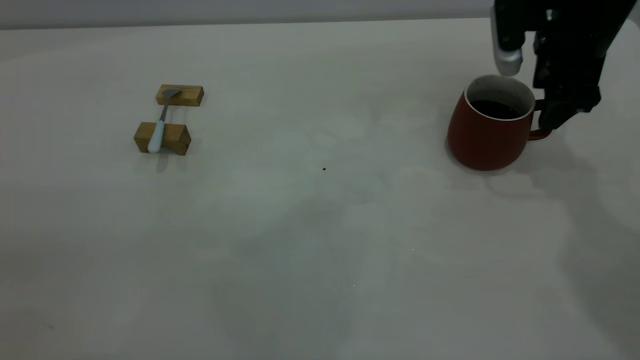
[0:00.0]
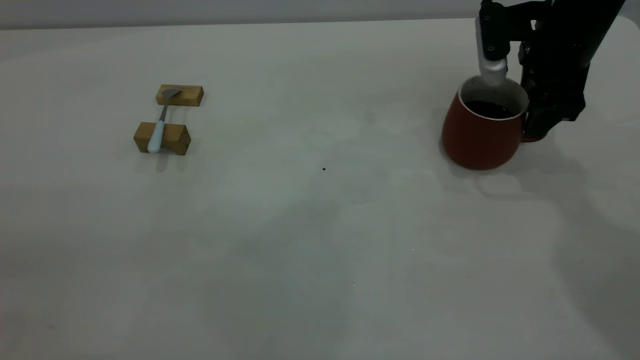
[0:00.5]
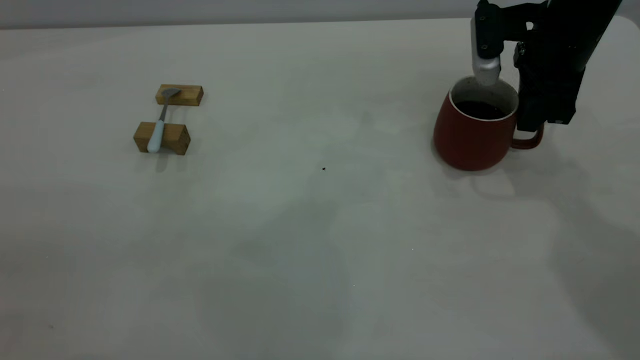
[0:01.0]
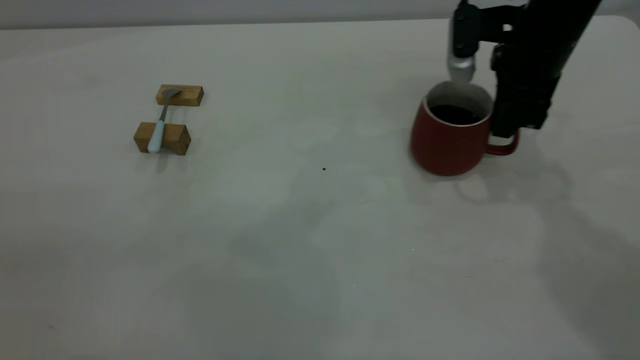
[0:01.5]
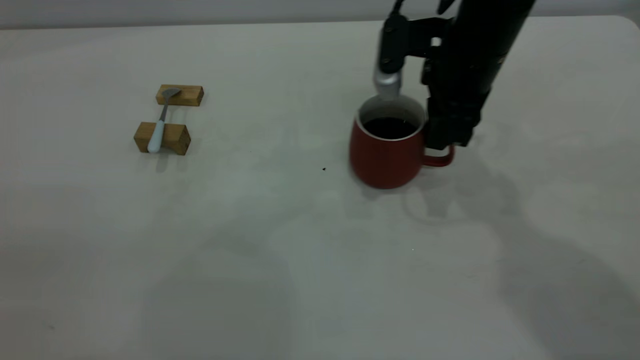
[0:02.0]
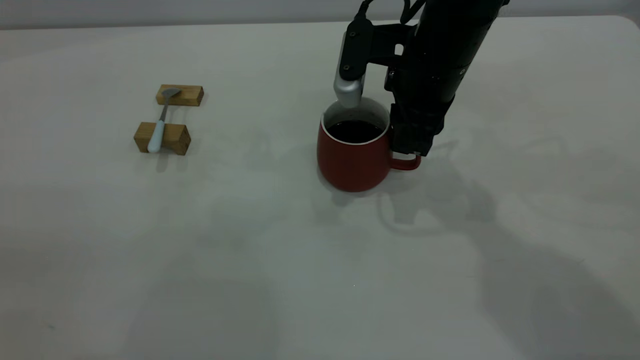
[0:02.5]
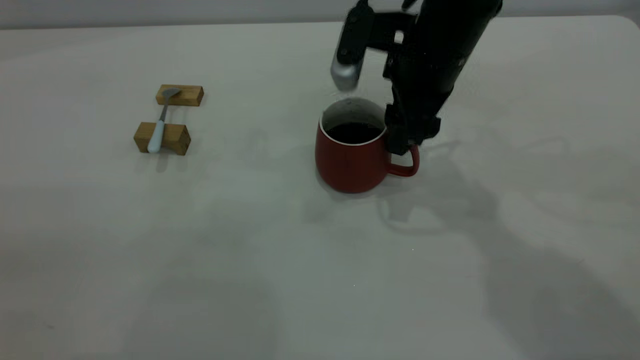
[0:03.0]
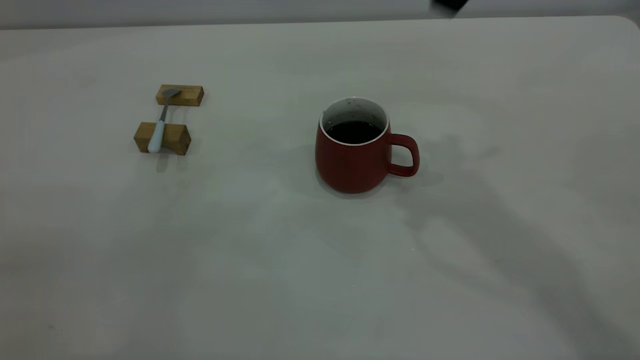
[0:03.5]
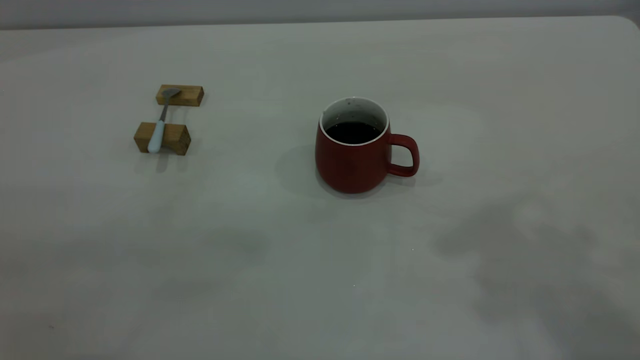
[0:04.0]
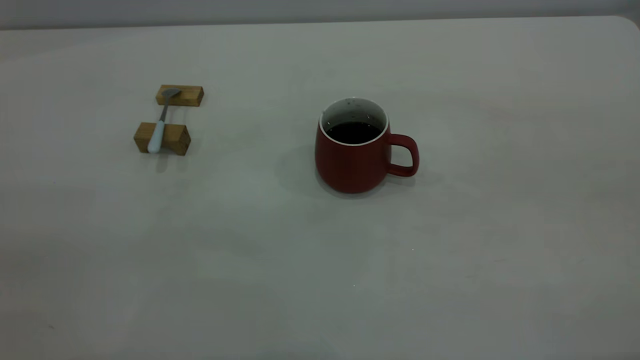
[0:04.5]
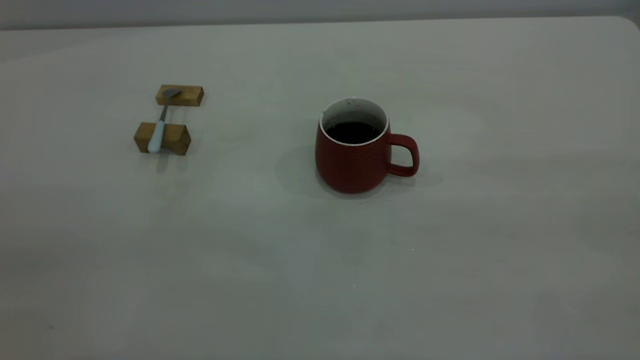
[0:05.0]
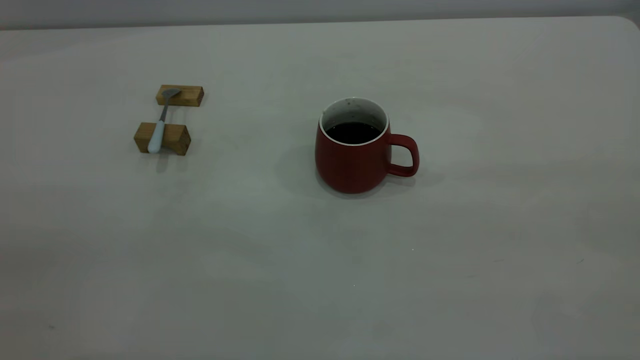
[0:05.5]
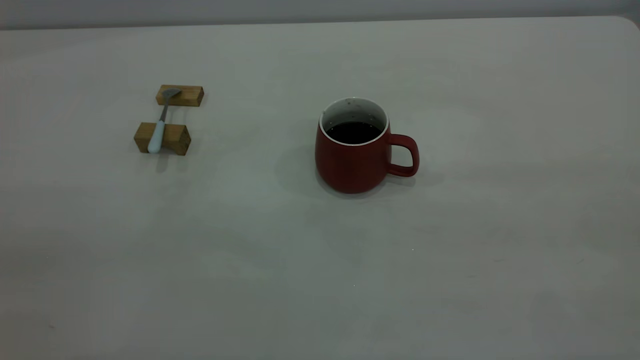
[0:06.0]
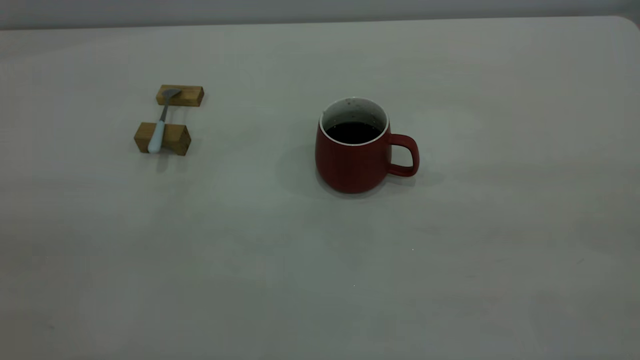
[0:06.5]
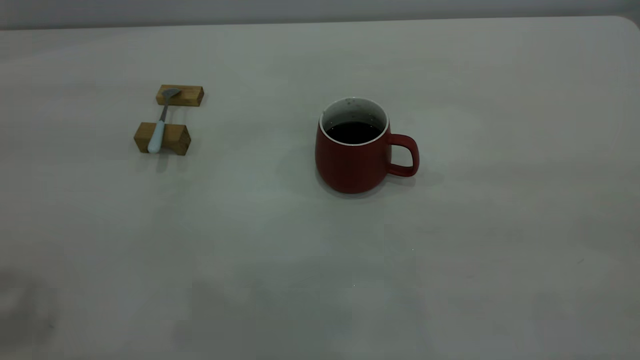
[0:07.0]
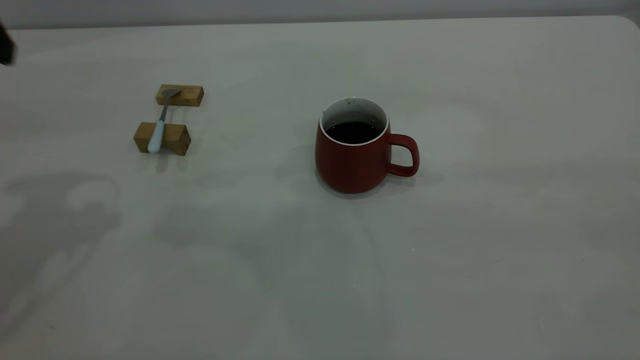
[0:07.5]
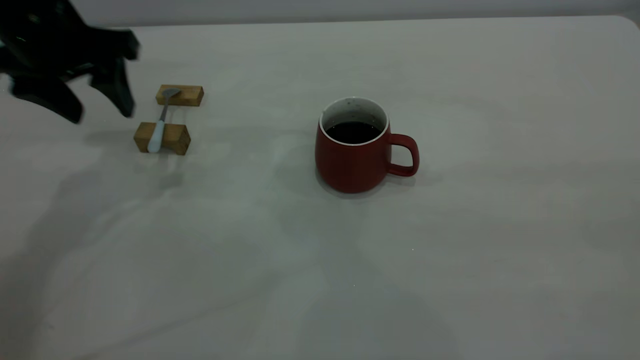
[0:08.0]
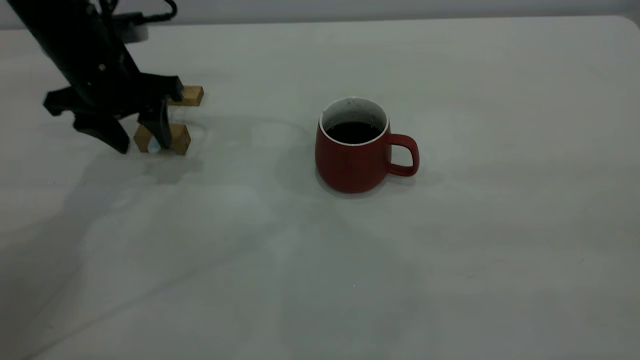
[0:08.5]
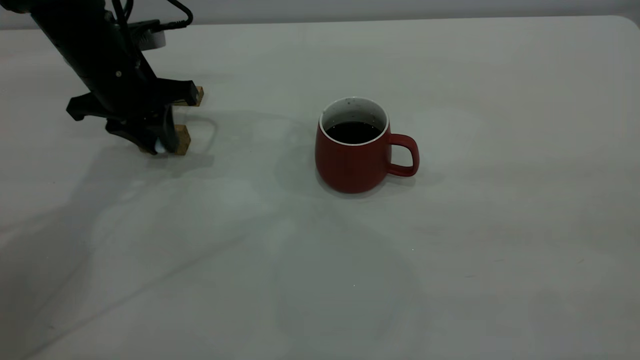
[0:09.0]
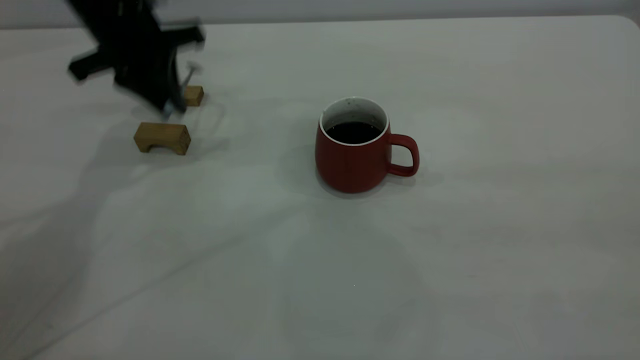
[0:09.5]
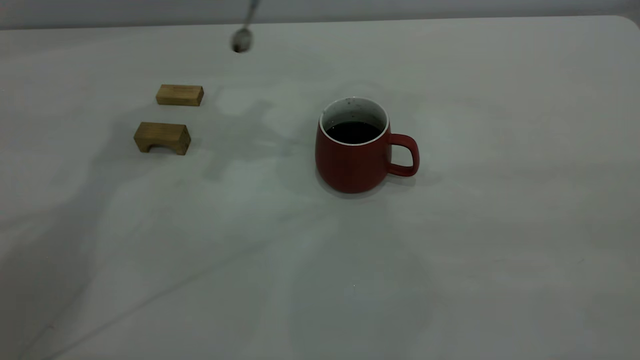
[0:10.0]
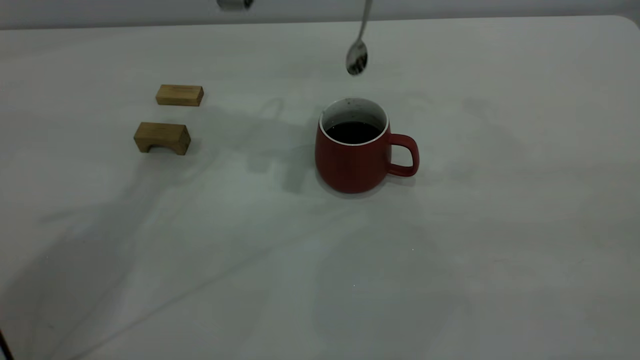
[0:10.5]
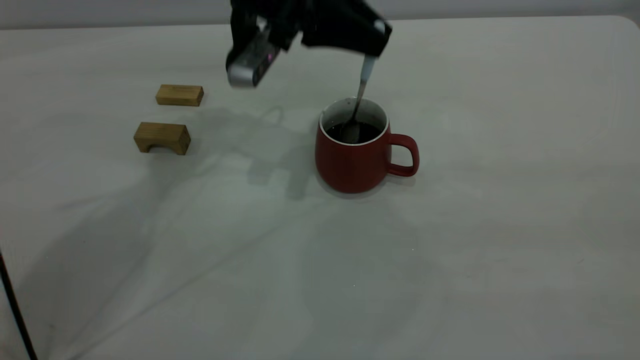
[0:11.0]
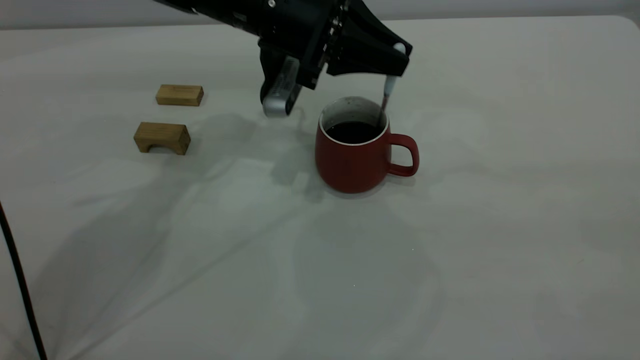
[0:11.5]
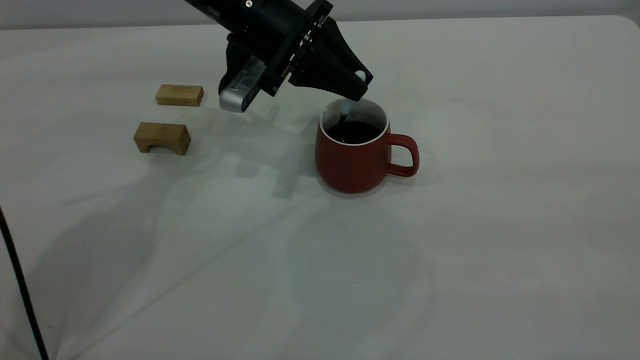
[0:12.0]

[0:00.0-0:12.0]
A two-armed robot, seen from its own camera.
Step, 0:00.0 to 0:03.0: Move the cup with coffee to the center of view.
Step, 0:03.5 to 0:09.5: Pick up the spoon.
0:00.0 to 0:02.0: The right gripper goes roughly 10 cm to the left, and closes.
0:02.0 to 0:04.0: The right gripper travels upward and backward by approximately 40 cm, and opens its fingers.
0:06.0 to 0:08.0: The left gripper heads forward and downward, covering roughly 40 cm.
0:08.0 to 0:10.0: The left gripper heads to the right, upward and forward, covering about 15 cm, and closes its fingers.
0:10.0 to 0:12.0: The left gripper moves downward and to the right, some 15 cm.

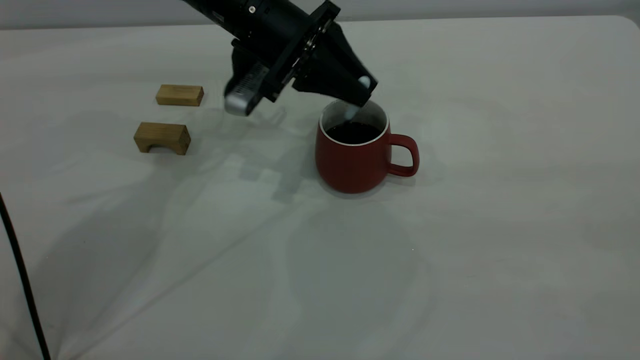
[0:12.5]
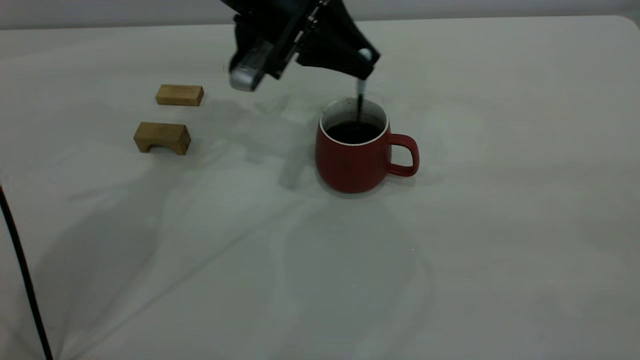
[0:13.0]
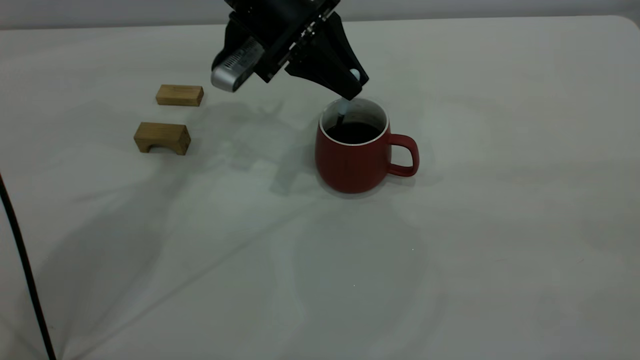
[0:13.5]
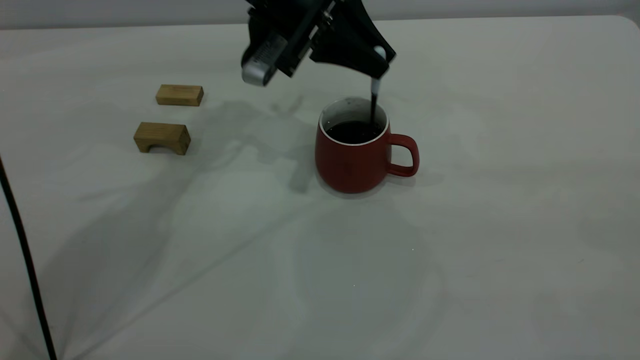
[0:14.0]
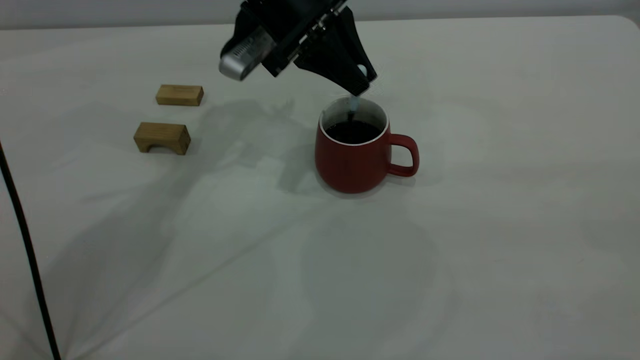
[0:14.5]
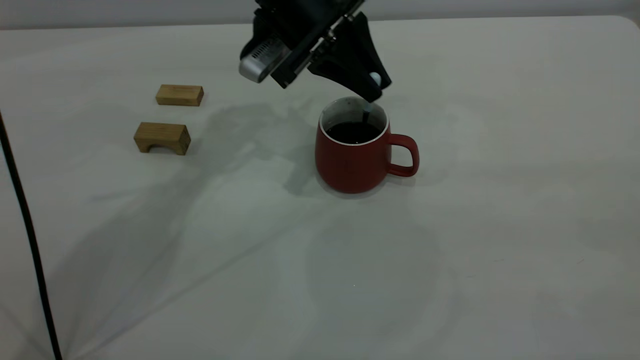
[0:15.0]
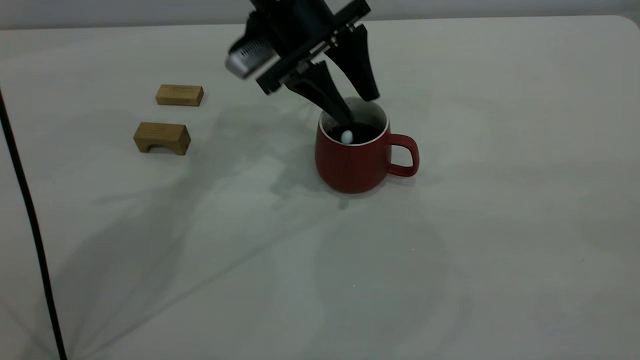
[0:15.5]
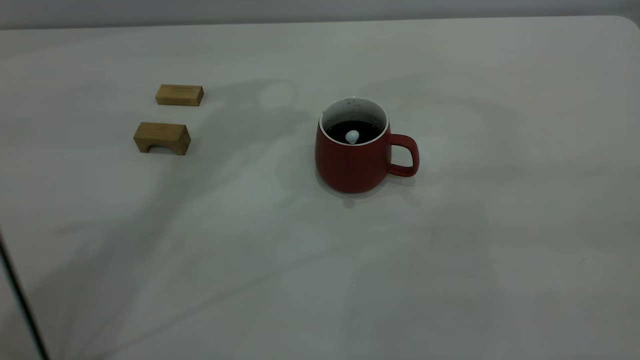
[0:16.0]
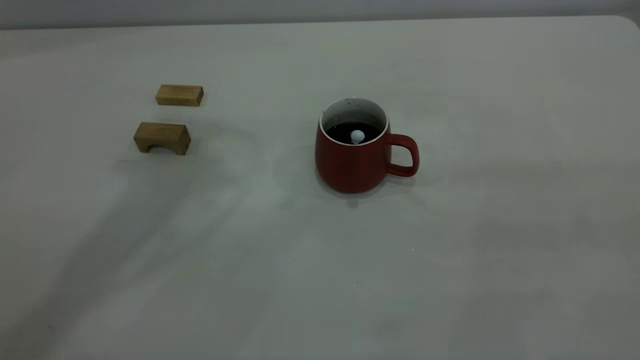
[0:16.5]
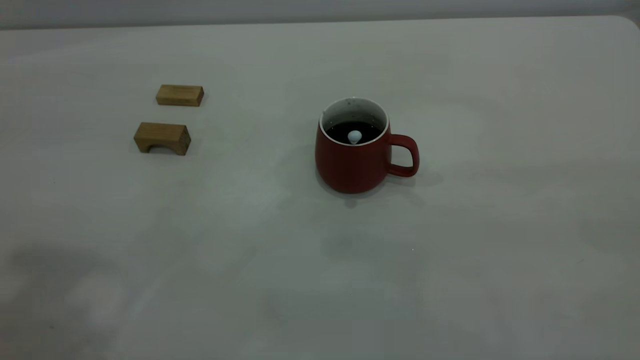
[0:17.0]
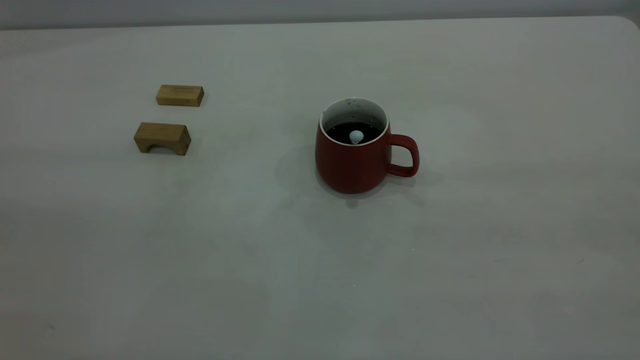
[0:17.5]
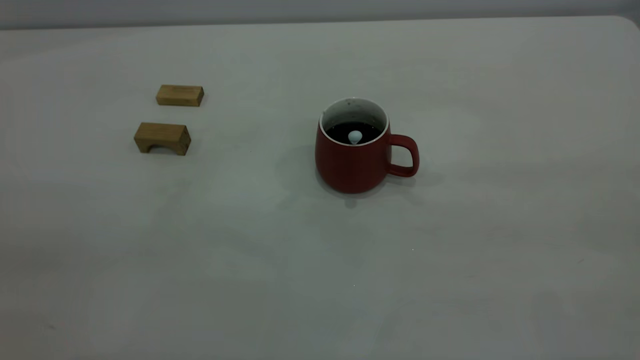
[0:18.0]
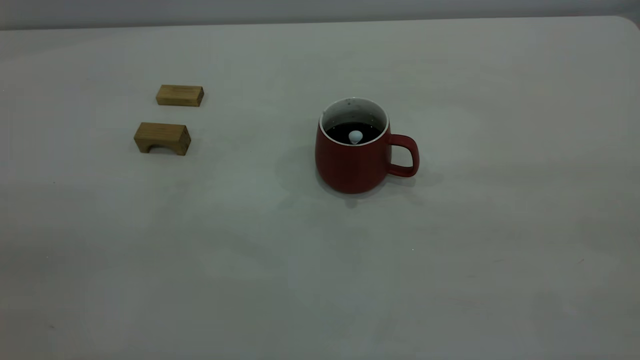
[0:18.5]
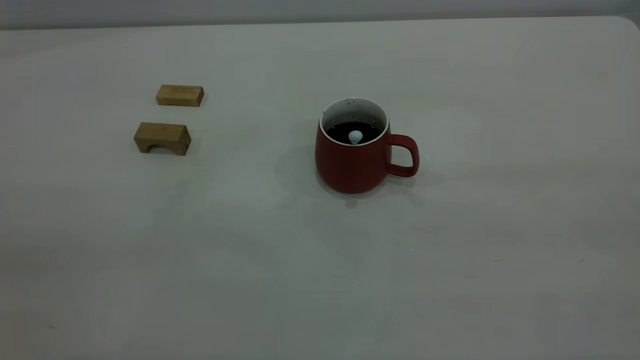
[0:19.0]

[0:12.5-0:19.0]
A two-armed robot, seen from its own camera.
Step, 0:12.5 to 0:15.5: Stir the coffee in the cup.
0:12.5 to 0:14.5: There are only small adjustments of the grippers.
0:14.5 to 0:17.0: The left gripper shifts some 40 cm backward, upward and to the left, and opens its fingers.

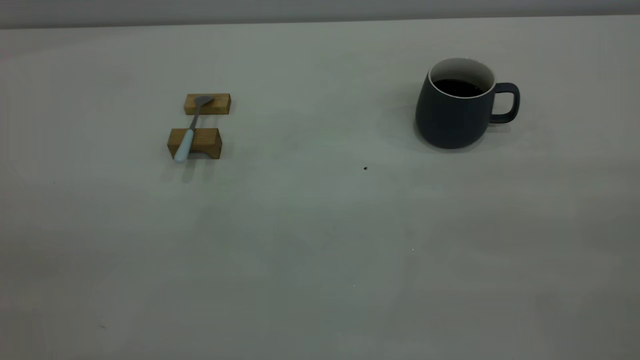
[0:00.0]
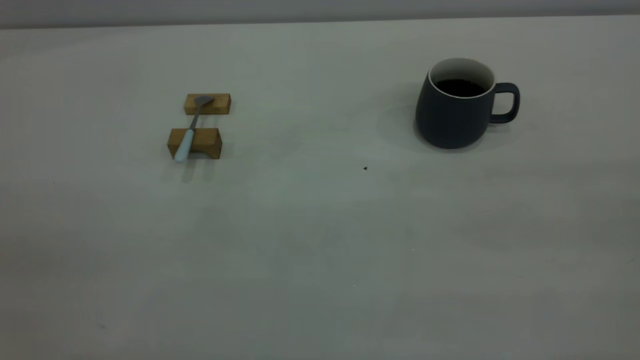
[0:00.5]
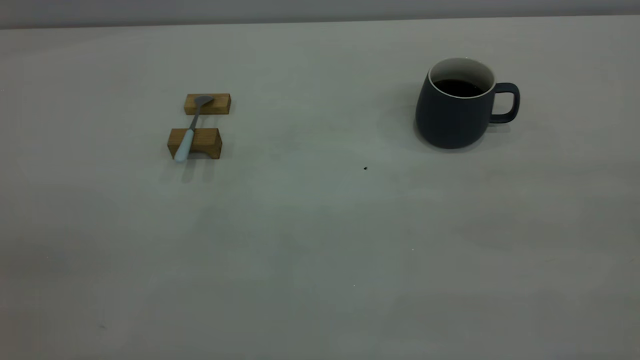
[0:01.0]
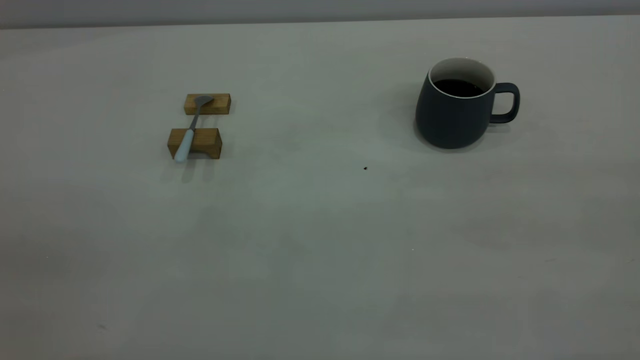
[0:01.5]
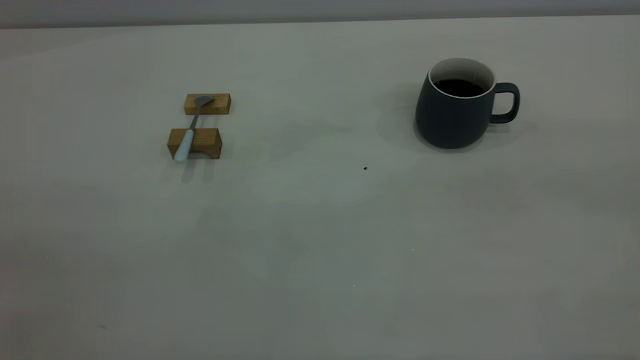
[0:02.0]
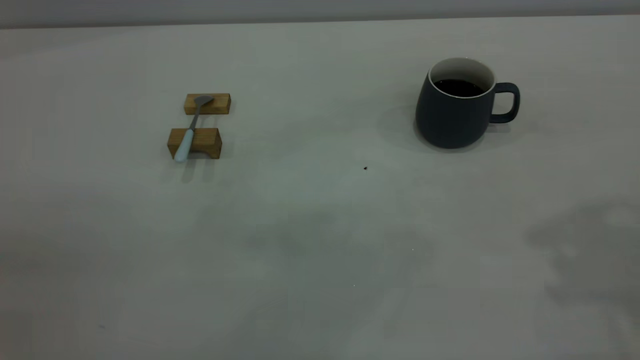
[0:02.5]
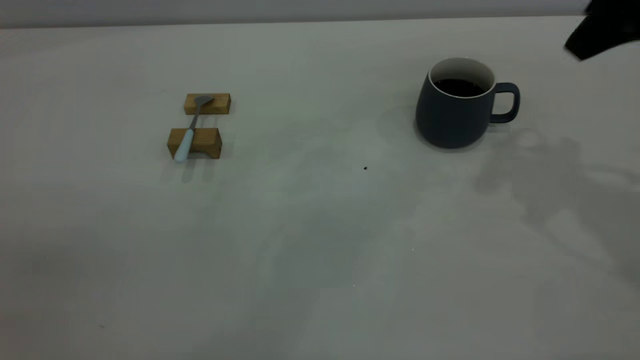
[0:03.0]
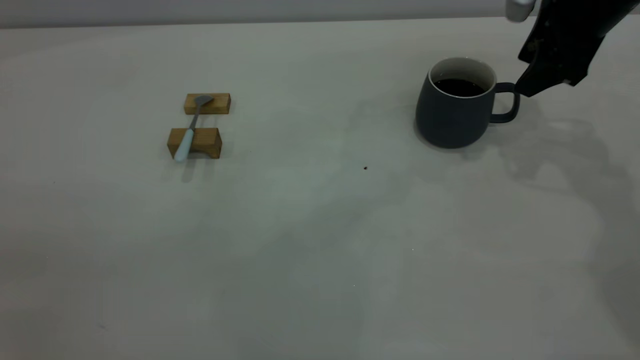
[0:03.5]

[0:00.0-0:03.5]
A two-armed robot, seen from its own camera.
0:02.0 to 0:03.5: The right gripper travels forward and downward by some 40 cm, and closes its fingers.
